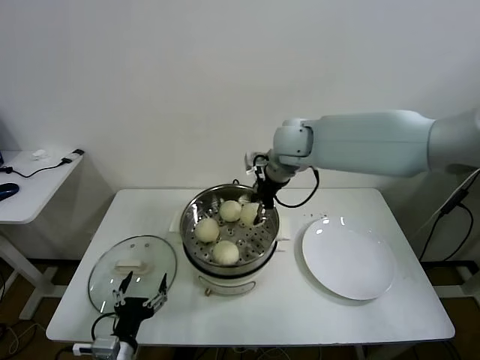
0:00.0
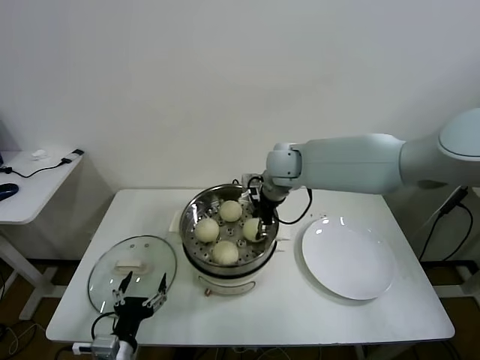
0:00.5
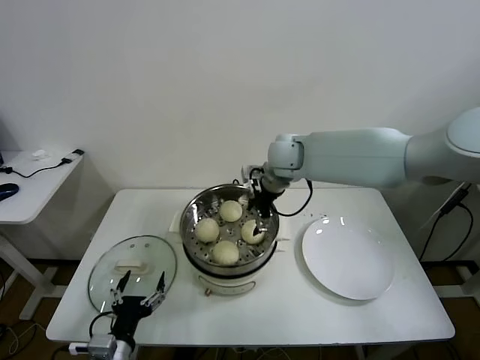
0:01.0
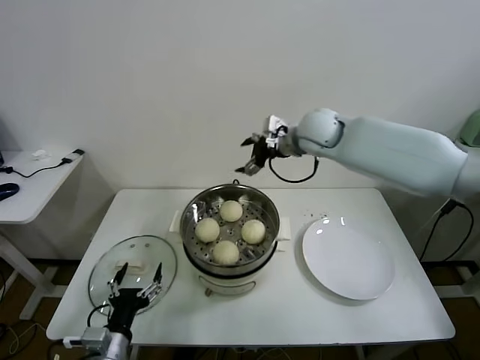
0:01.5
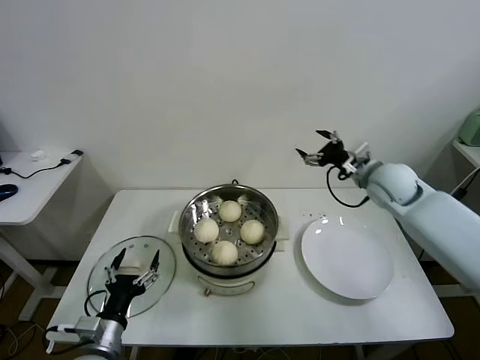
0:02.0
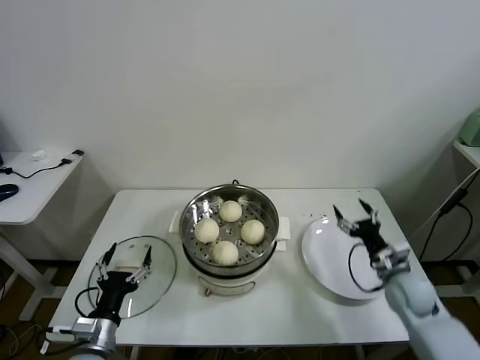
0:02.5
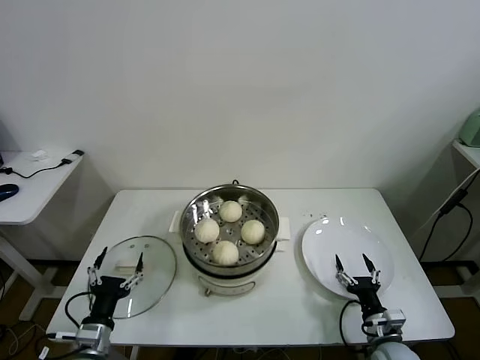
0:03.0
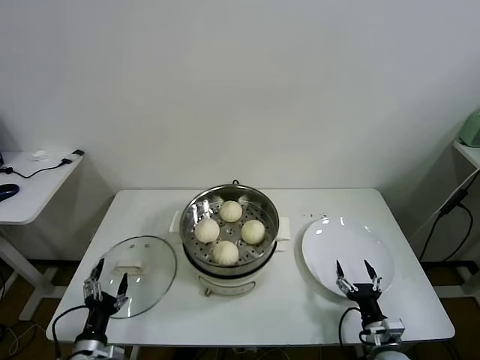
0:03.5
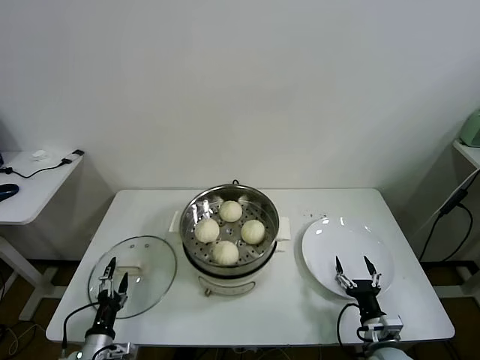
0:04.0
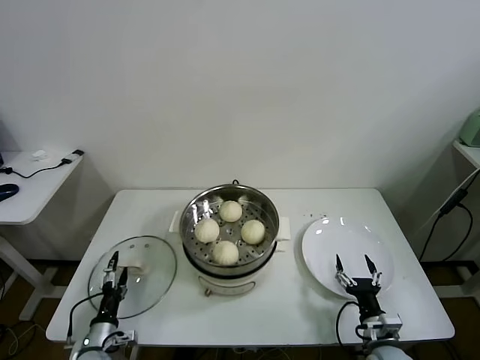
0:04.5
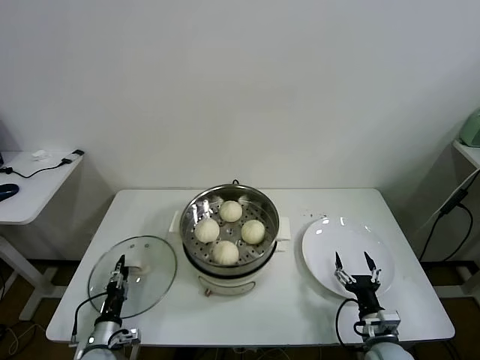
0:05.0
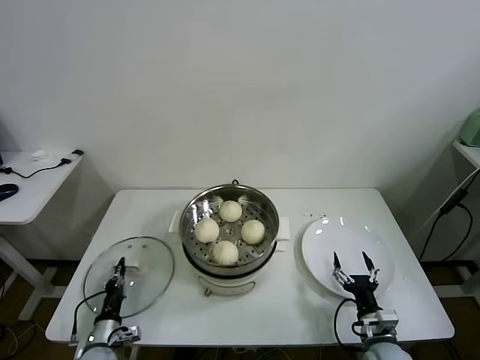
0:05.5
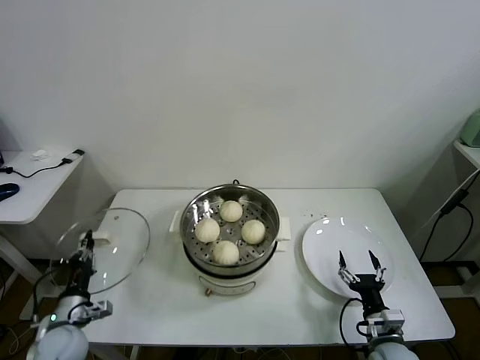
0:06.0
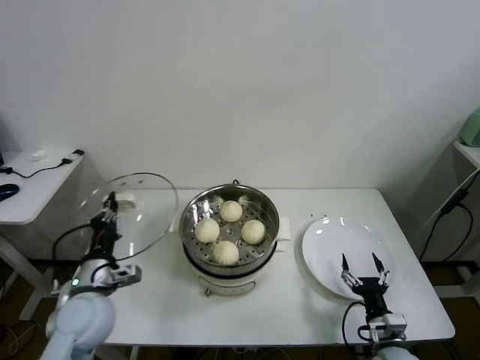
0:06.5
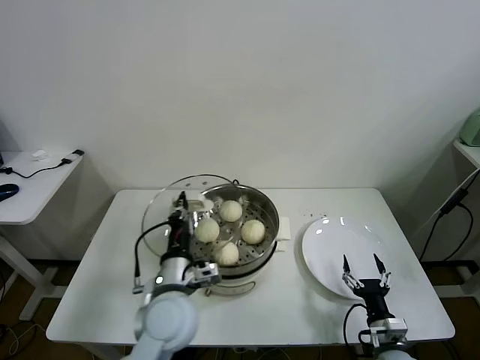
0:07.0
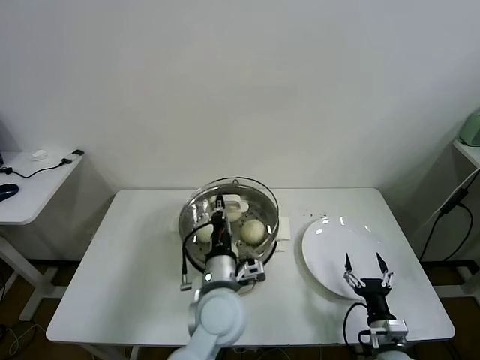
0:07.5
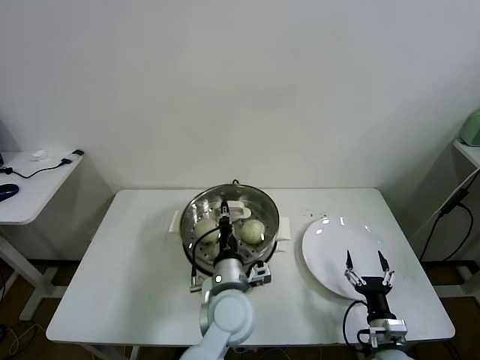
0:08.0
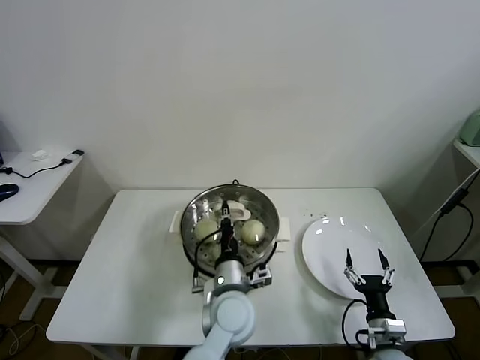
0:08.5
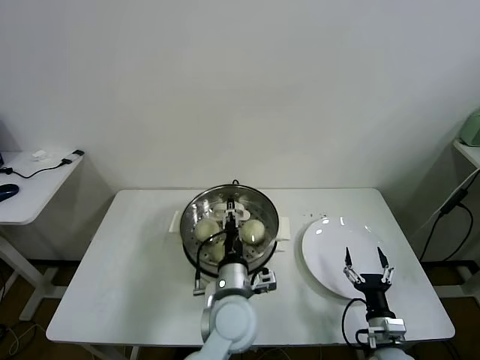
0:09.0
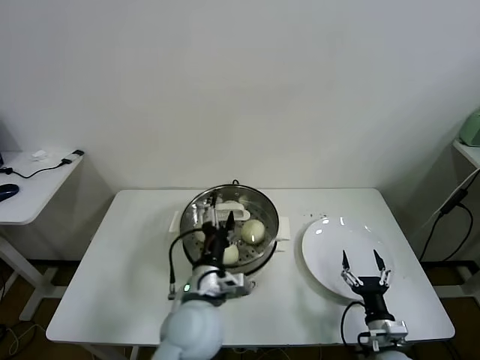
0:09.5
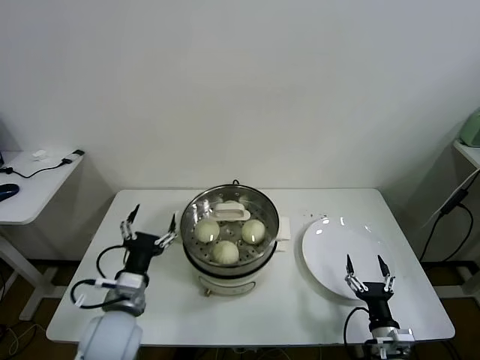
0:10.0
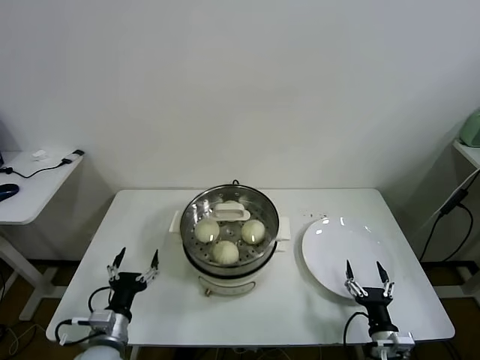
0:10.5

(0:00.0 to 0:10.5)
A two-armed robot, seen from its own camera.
Task of the whole recording: take steamed baozi put them in steamer.
Step, 0:01.0 - 0:05.0: Grasp the pot lid with left gripper.
Step, 0:06.0 - 0:09.0: Place the pot lid on the steamer with left gripper.
0:00.0 - 0:02.0: The right gripper is displaced to the right and downward by some 25 cm, and opens up.
0:02.0 - 0:04.0: The right gripper is displaced downward and backward by about 40 cm. The left gripper heads downward and to the left, covering about 15 cm.
0:04.0 - 0:06.5: The left gripper is displaced upward and forward by approximately 20 cm, and closes its fingers.
0:06.5 - 0:08.5: The left gripper heads to the right, covering about 30 cm.
0:08.5 - 0:10.5: The left gripper travels to the left by roughly 25 cm, and opens its fingers.

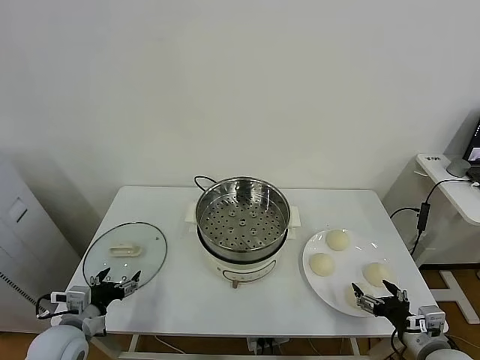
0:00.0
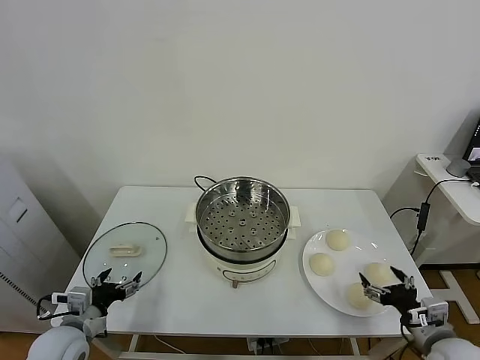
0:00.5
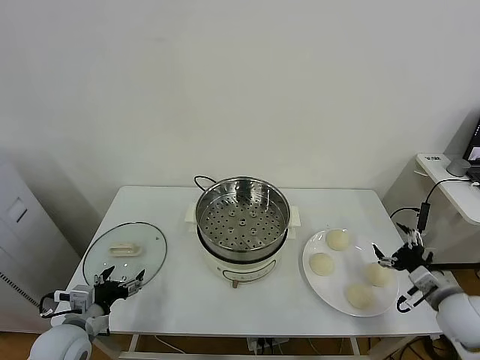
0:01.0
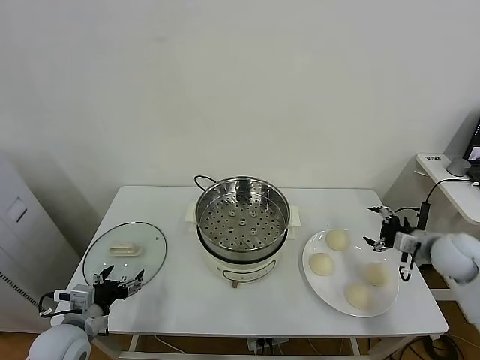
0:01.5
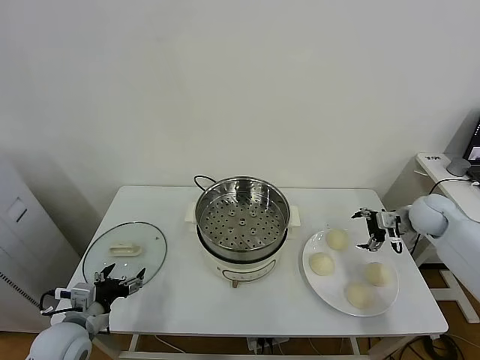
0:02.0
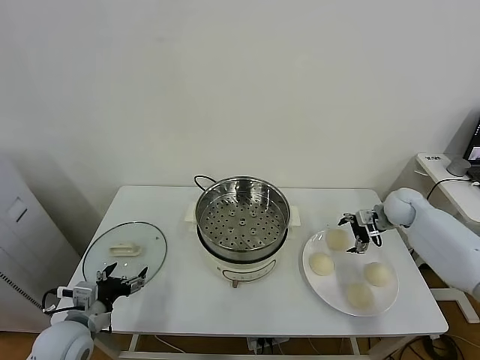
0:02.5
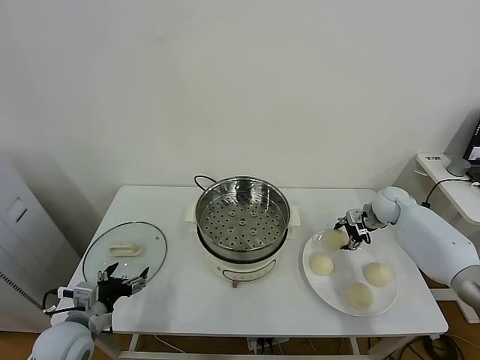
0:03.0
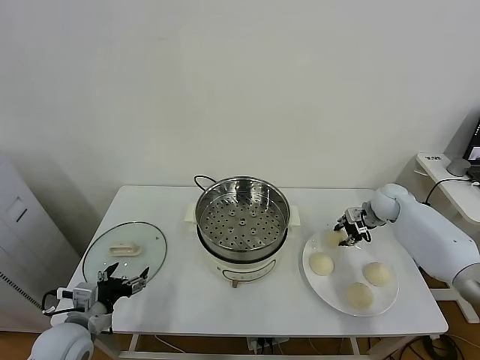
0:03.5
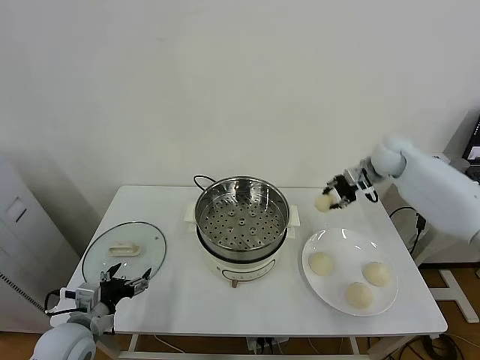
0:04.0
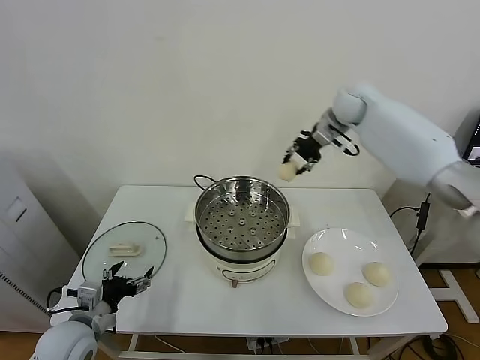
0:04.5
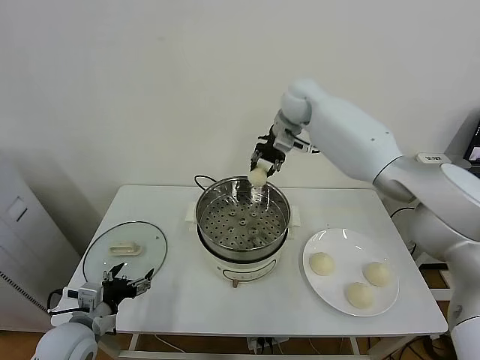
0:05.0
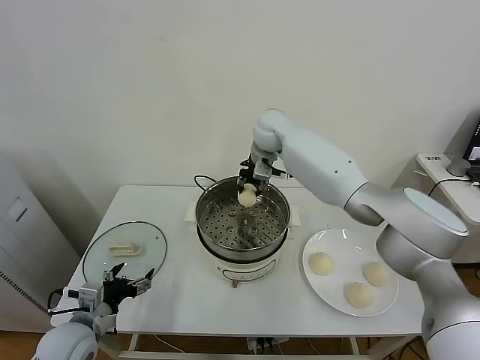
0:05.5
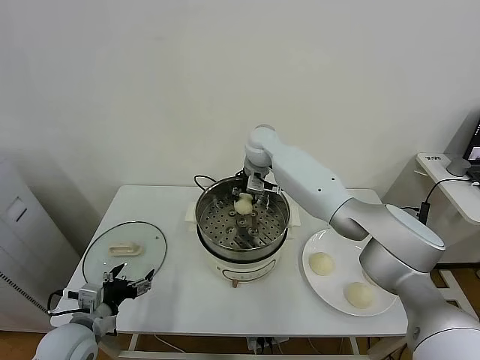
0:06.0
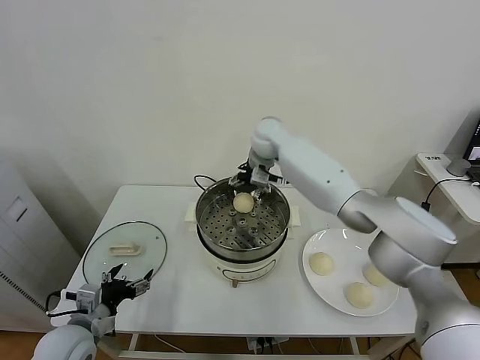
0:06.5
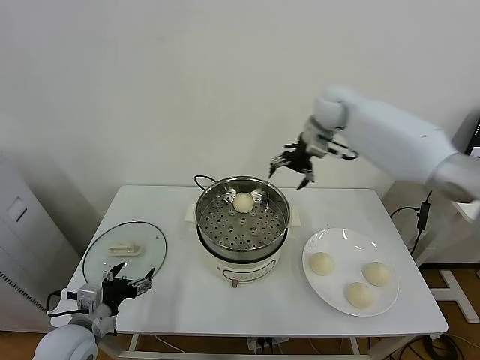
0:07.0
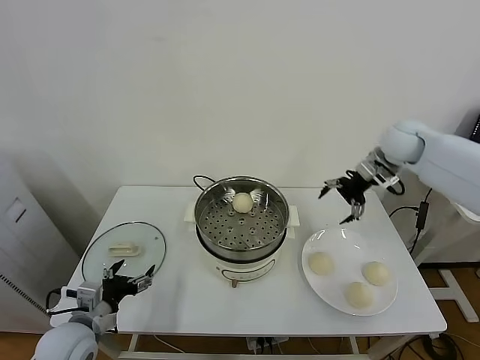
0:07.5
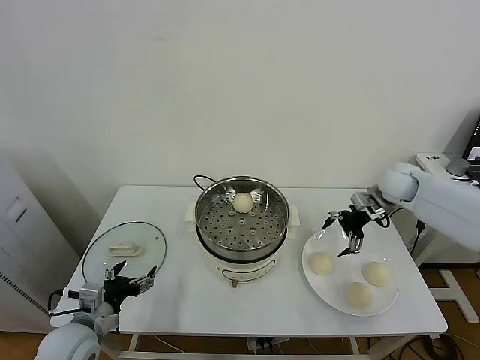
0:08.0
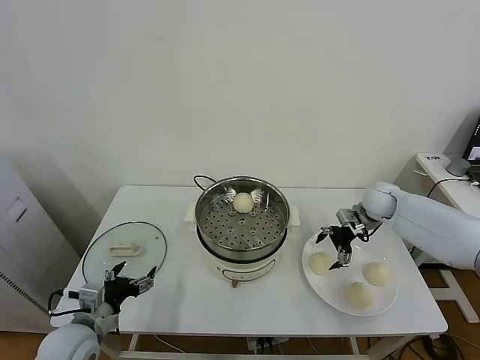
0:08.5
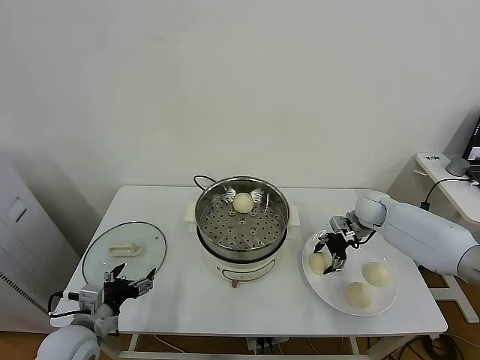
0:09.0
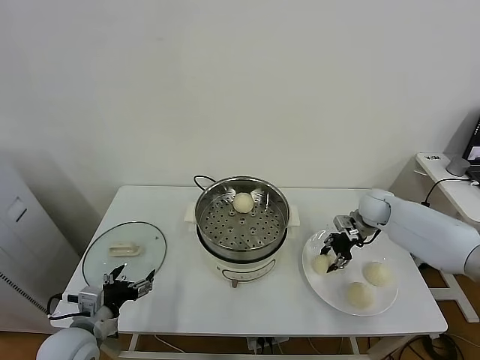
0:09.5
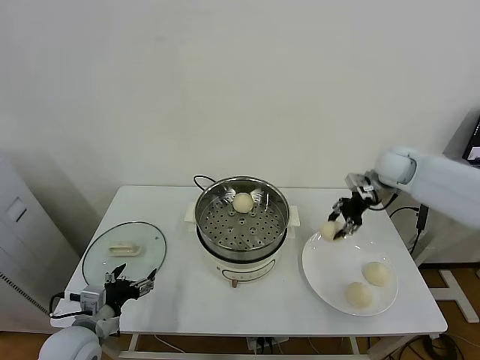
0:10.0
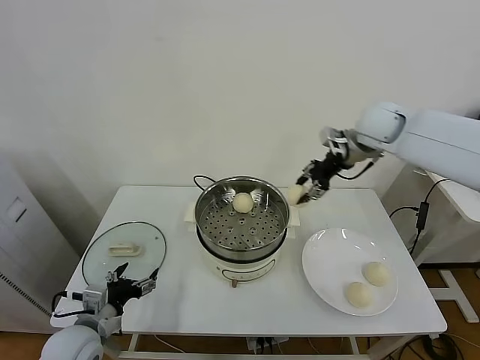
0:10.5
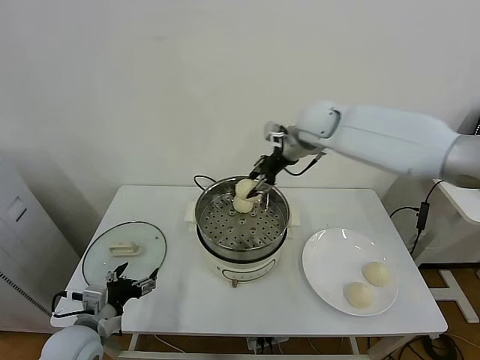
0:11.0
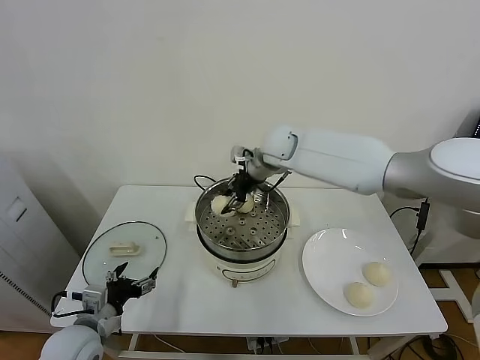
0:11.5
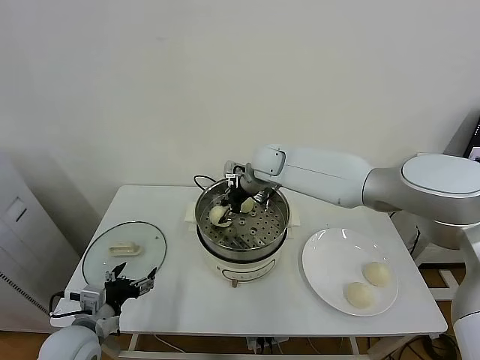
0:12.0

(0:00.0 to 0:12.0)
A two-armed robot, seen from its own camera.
Task of the whole recording: take steamed baozi put them in steamer.
Step, 0:00.0 - 0:03.0: Grasp the baozi in the plate with right gripper.
Step, 0:03.5 - 0:06.5: Place the baozi on the steamer with right gripper.
Step, 0:07.0 - 0:09.0: Grasp the baozi in the plate with right gripper.
0:02.0 - 0:04.0: The right gripper goes roughly 20 cm upward, forward and to the left, and closes its fingers.
0:04.0 - 0:06.0: The right gripper shifts roughly 30 cm to the left.
0:06.0 - 0:08.0: The right gripper heads to the right, covering approximately 35 cm, and opens its fingers.
0:08.0 - 0:10.0: The right gripper travels upward by roughly 10 cm, and closes up.
0:10.0 - 0:12.0: The right gripper shifts approximately 30 cm to the left.

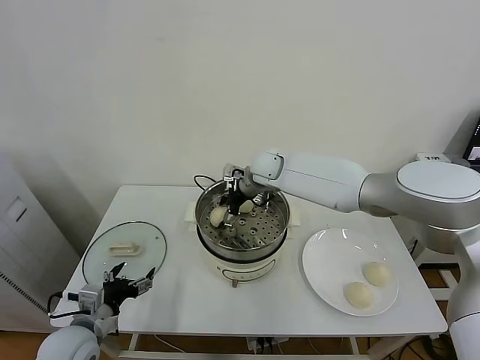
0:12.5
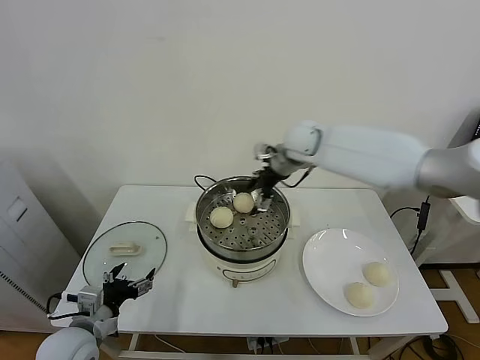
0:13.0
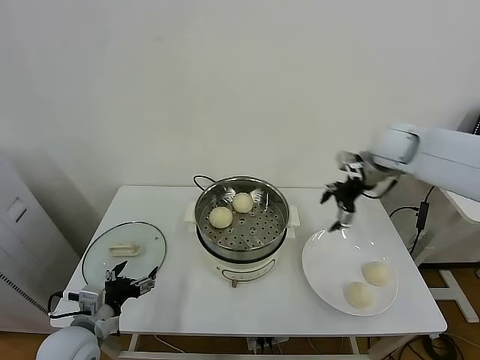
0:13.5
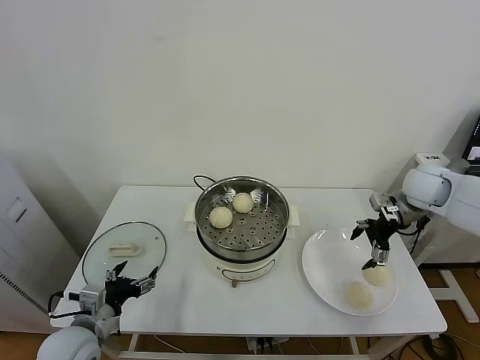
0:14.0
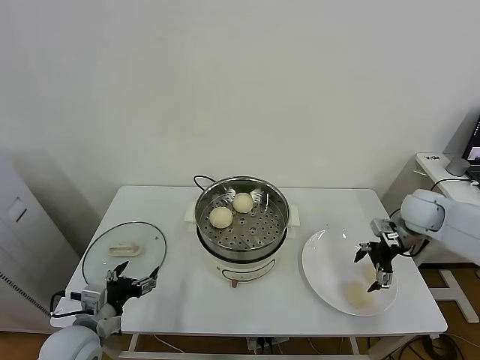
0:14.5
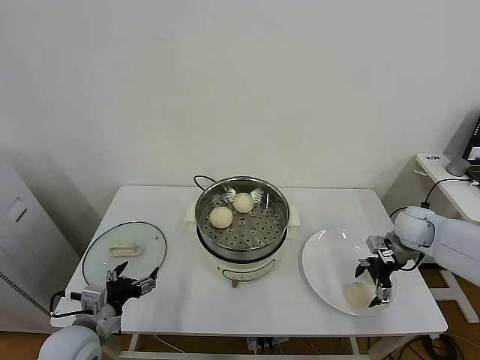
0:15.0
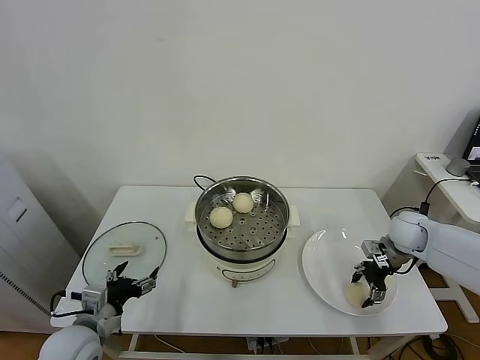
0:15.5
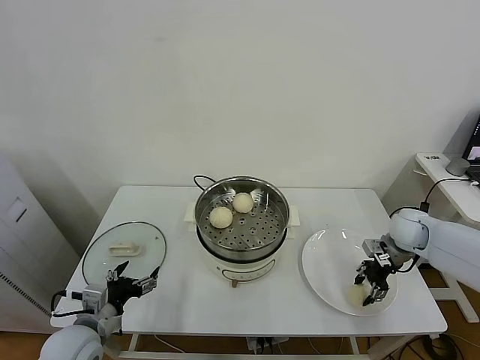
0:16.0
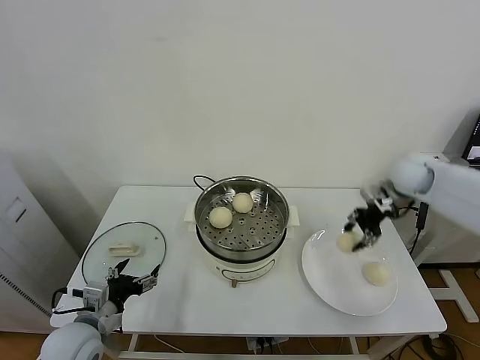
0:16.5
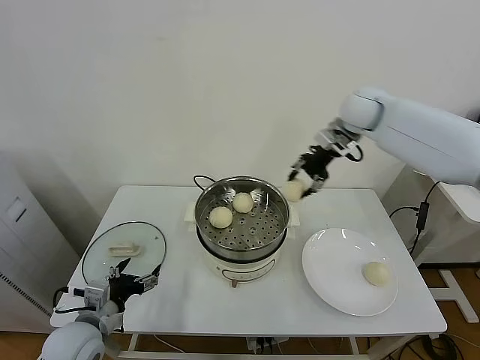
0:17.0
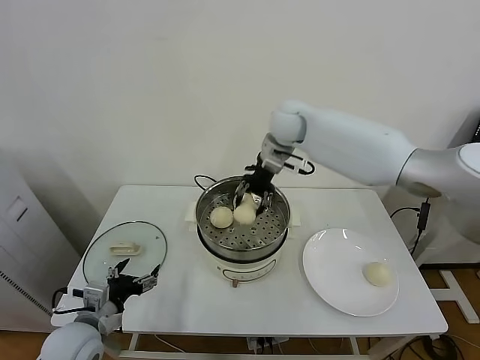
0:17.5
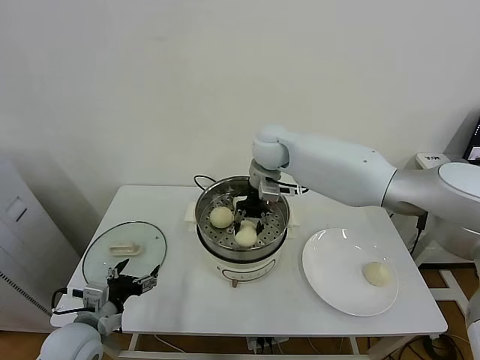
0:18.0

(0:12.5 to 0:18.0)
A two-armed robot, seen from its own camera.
Task of the whole recording: take steamed baozi put them in steamer.
Step, 0:13.0 - 0:15.5: Grasp the baozi in the plate with right gripper.
0:12.5 - 0:14.5: The right gripper shifts approximately 35 cm to the right.
0:14.5 - 0:16.0: The right gripper closes its fingers.
0:16.0 - 0:18.0: The right gripper shifts roughly 40 cm to the left and upward.
